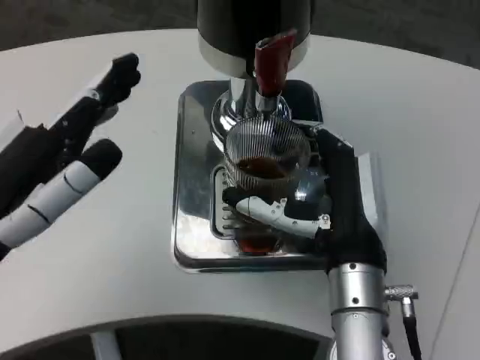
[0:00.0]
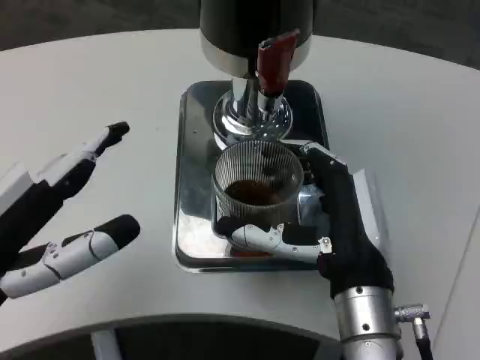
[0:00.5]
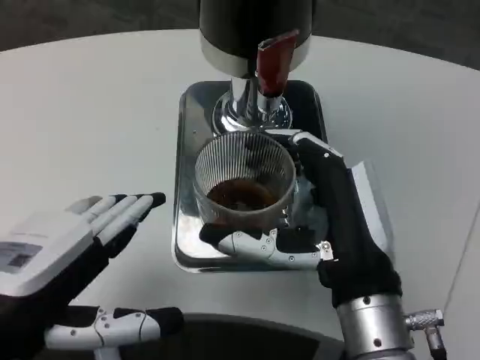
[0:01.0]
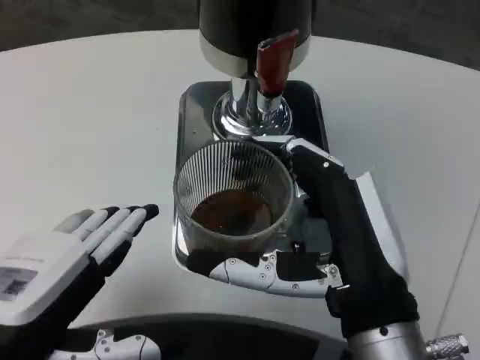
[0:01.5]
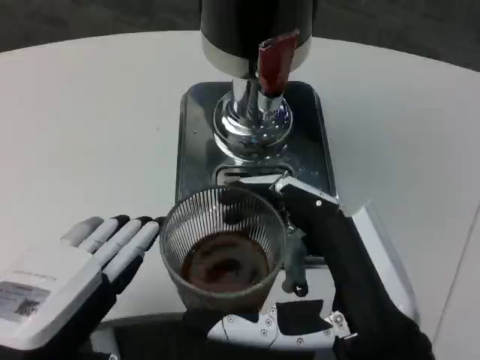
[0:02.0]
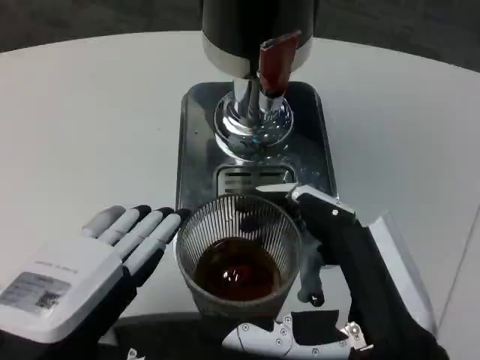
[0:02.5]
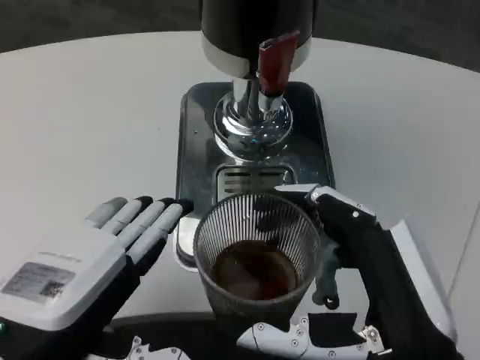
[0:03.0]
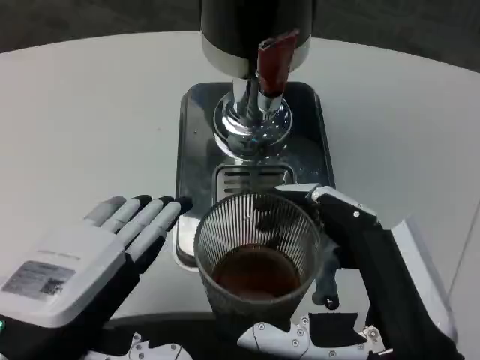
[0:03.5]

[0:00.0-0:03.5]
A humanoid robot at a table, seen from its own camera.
Task of the whole recording: Grasp the cup under the faucet to collect the drink, then remove the cup.
0.0 to 2.0 s: The right hand goes about 10 cm backward. Meanwhile the left hand goes about 5 cm backward.

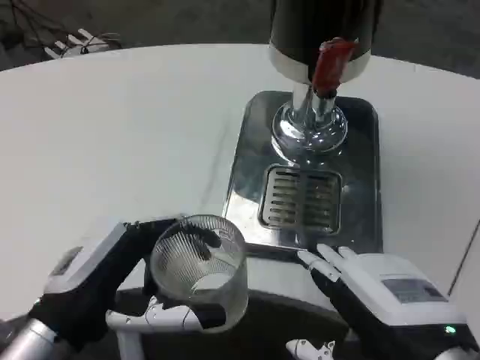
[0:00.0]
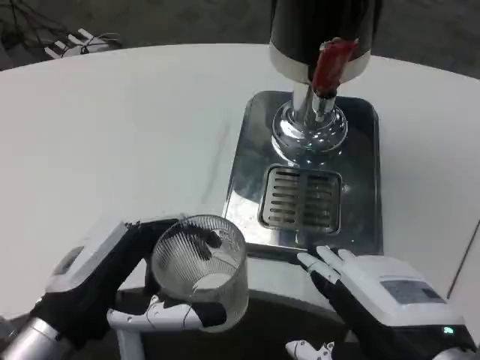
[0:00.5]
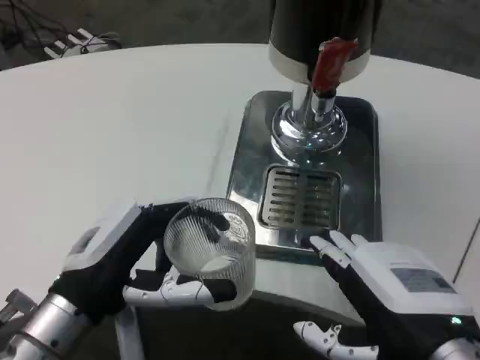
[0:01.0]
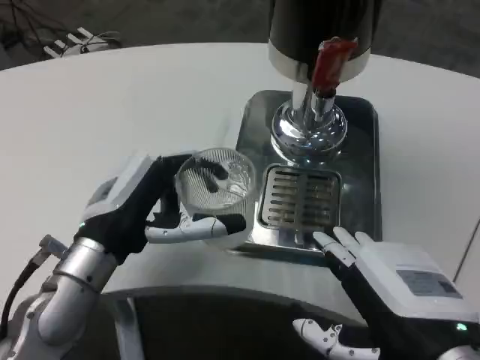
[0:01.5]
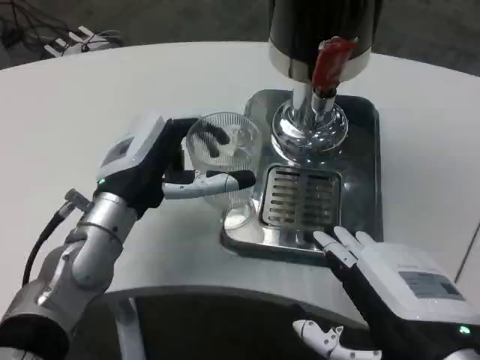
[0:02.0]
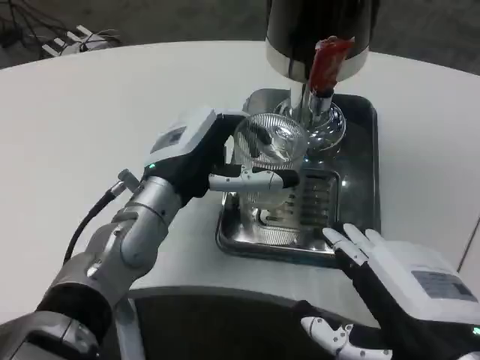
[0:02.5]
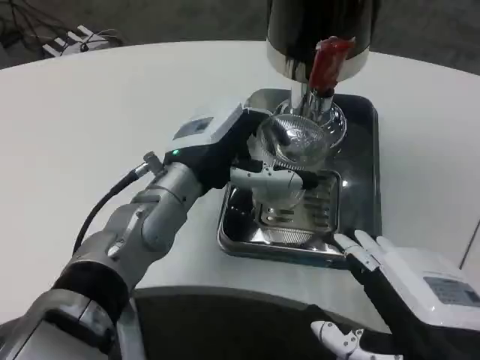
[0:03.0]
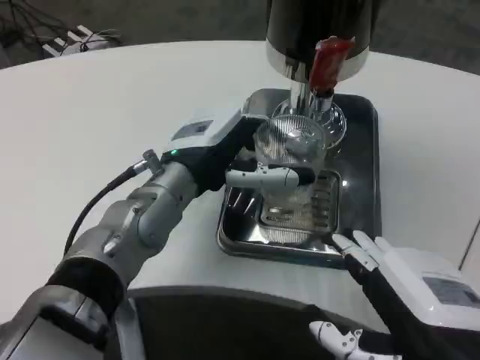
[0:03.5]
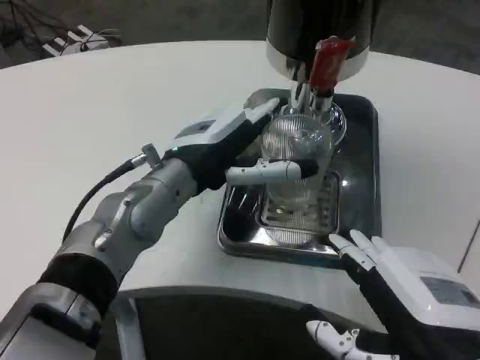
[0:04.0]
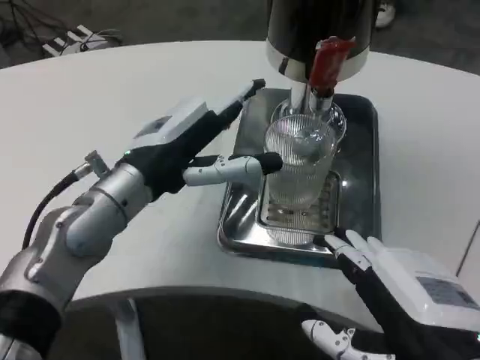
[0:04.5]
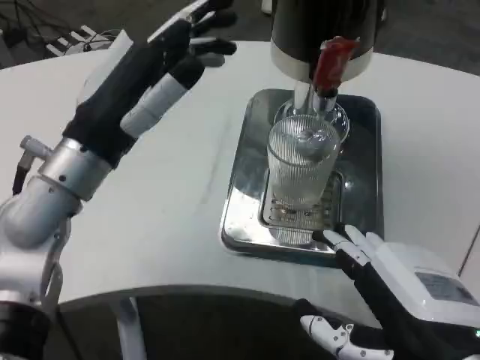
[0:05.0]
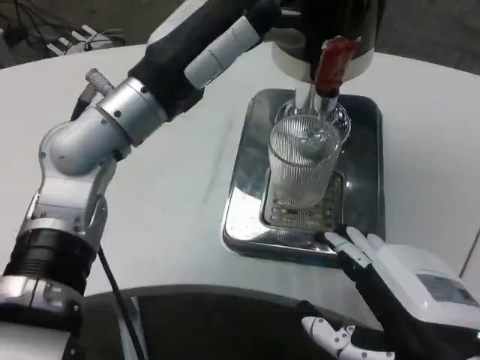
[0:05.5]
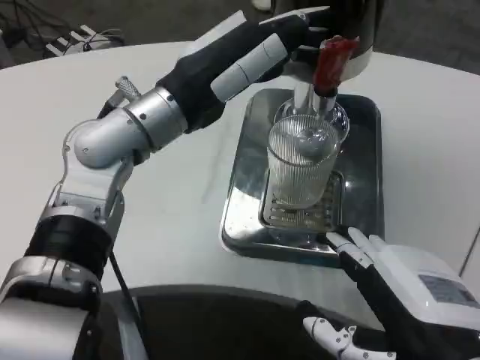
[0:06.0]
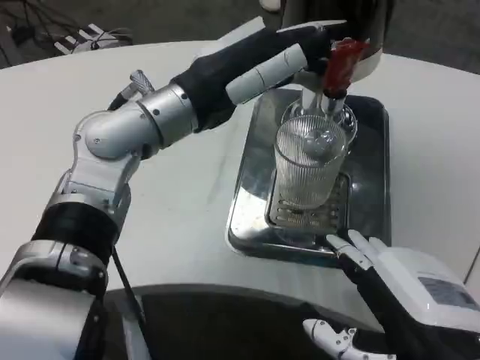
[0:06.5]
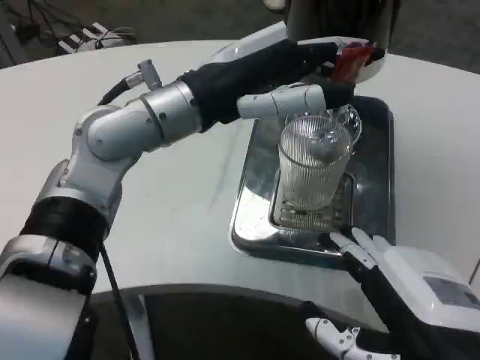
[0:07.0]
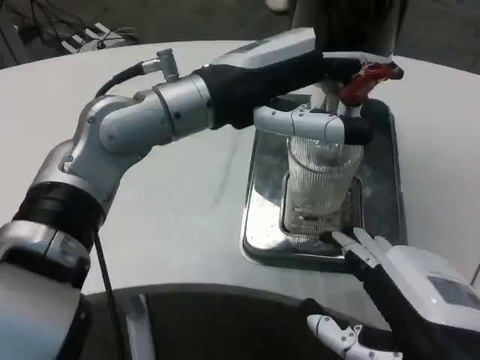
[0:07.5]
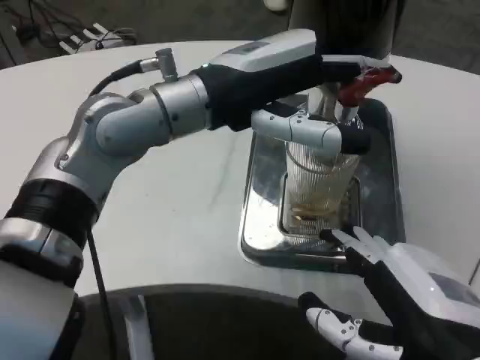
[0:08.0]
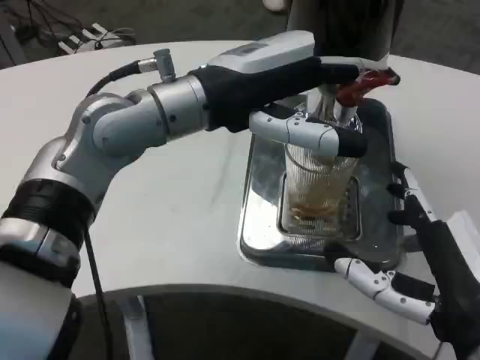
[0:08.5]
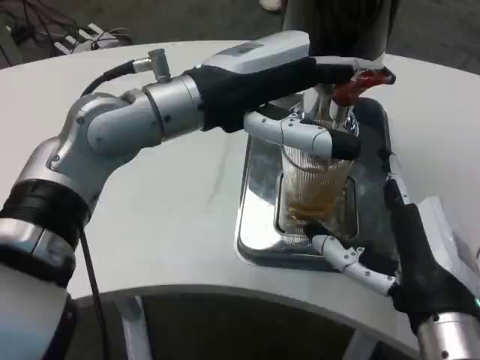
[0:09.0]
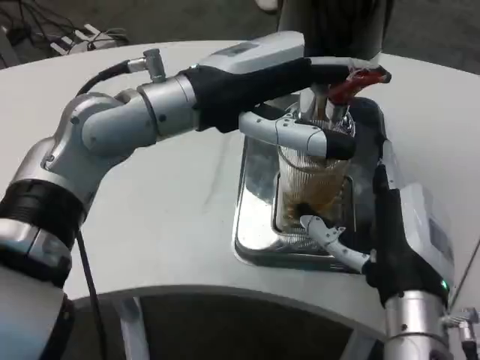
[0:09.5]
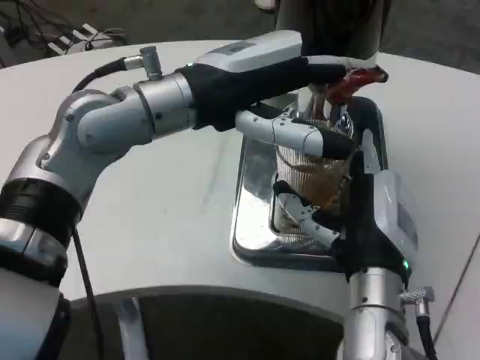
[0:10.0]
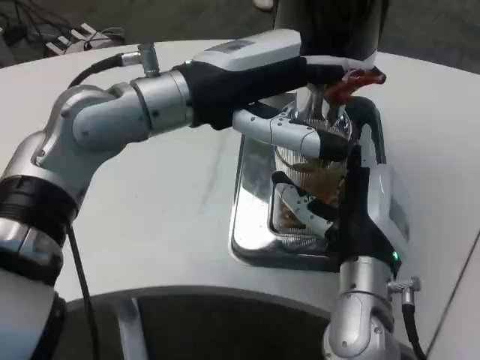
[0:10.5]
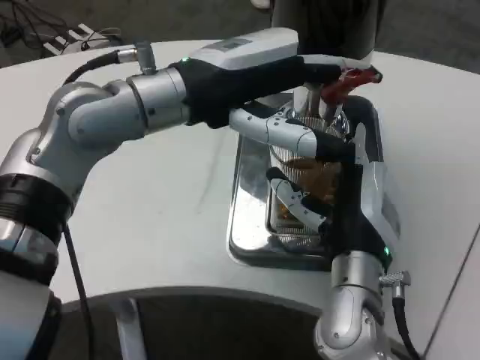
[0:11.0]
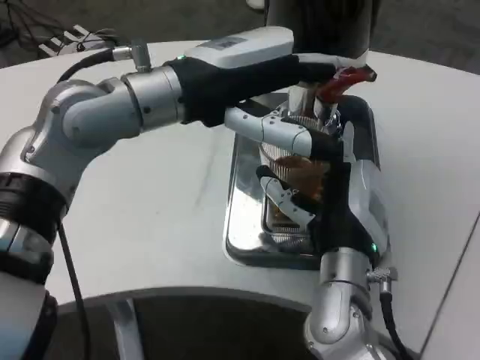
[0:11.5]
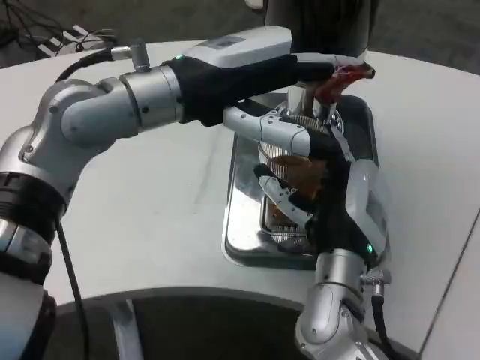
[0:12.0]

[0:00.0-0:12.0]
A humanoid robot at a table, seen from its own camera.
Task of the whole recording: Grasp the cup under the faucet to collect the drink, then remove the cup.
0.0 to 2.0 s: The left hand travels forward by roughly 10 cm.
2.0 to 4.0 s: The left hand changes place by about 5 cm.
4.0 to 6.0 s: The left hand shifts roughly 5 cm upward.
8.0 to 10.0 s: The right hand moves forward and to the left, approximately 15 cm.
10.0 to 12.0 s: The right hand shifts by roughly 5 cm.

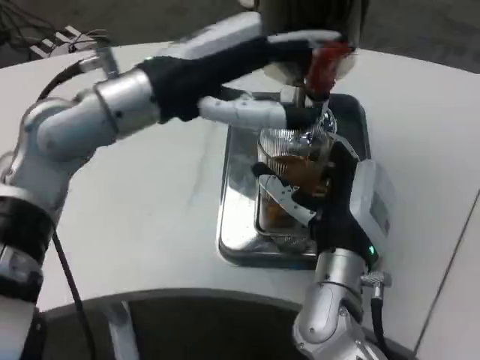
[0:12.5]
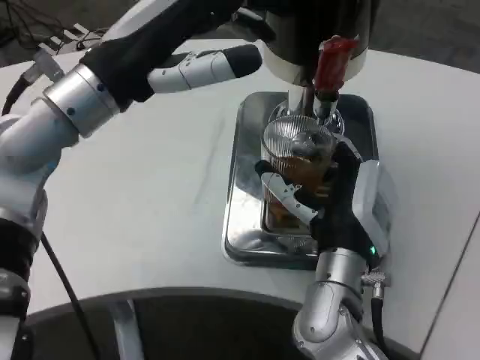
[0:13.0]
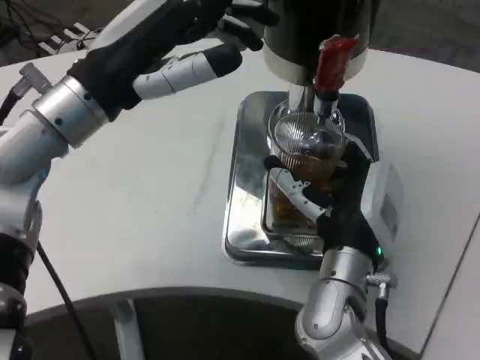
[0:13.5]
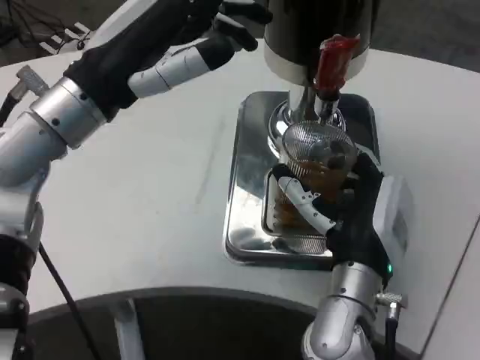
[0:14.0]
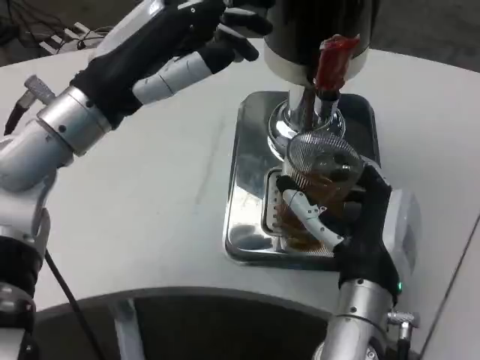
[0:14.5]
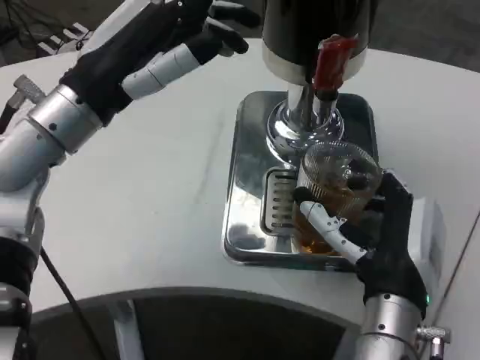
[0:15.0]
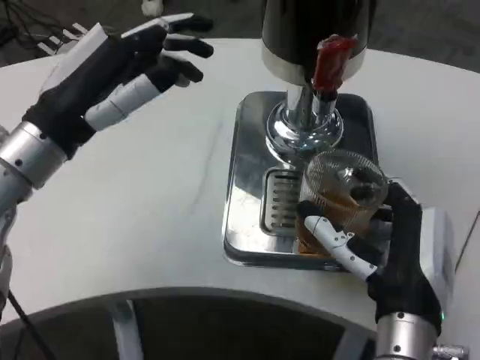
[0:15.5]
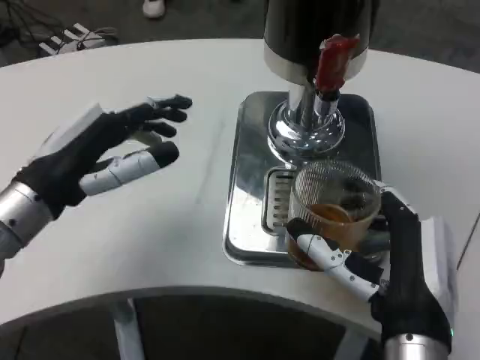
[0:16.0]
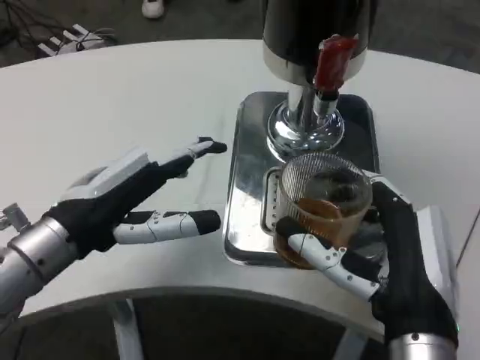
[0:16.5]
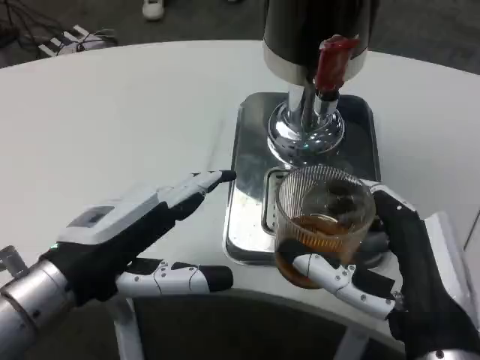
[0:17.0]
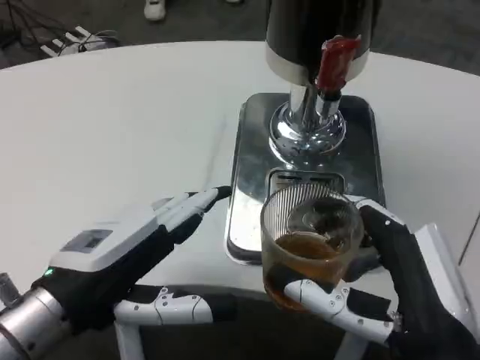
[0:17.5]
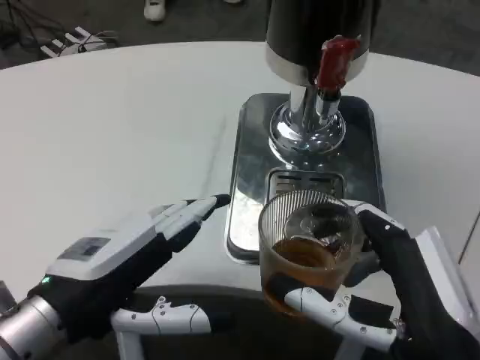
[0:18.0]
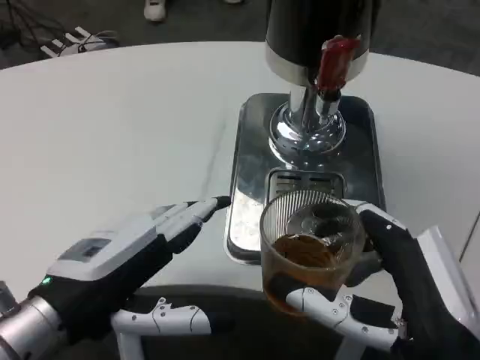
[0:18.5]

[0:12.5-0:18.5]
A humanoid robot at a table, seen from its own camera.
Task of the whole recording: Grasp the cup under the faucet to collect the drink, then remove the cup.
14.5 to 16.5 s: The left hand travels downward and backward by roughly 10 cm. Meanwhile the right hand travels backward by roughly 10 cm.
16.5 to 18.5 s: The right hand changes place by approximately 5 cm; the left hand travels backward by roughly 10 cm.

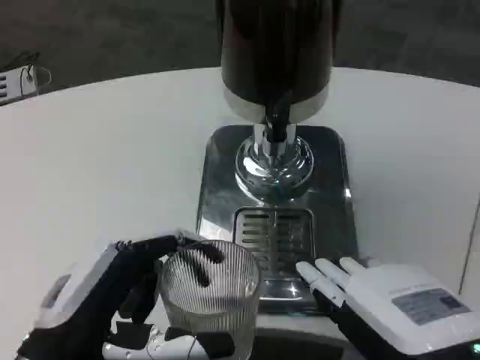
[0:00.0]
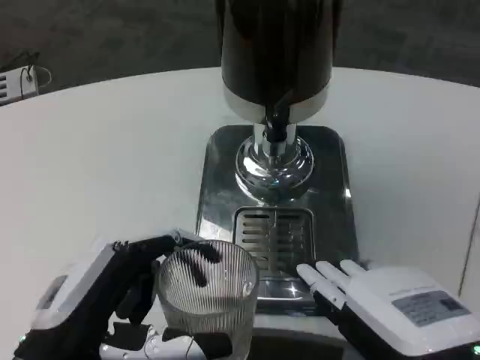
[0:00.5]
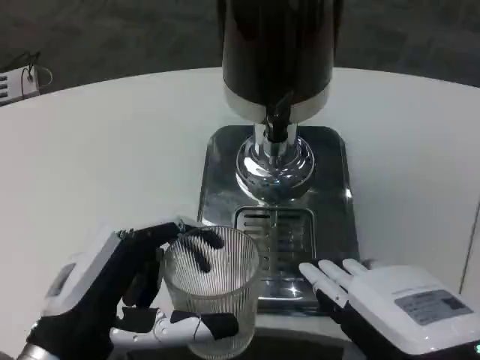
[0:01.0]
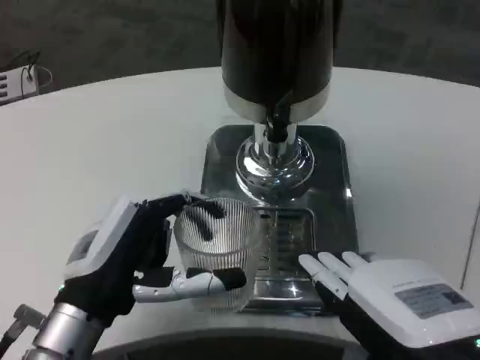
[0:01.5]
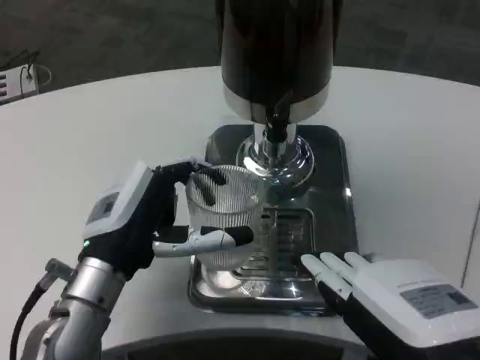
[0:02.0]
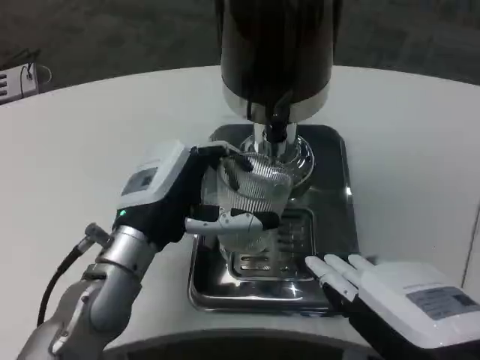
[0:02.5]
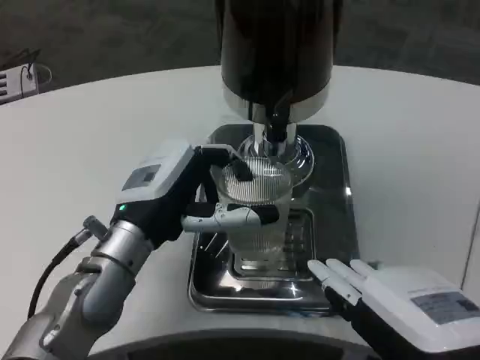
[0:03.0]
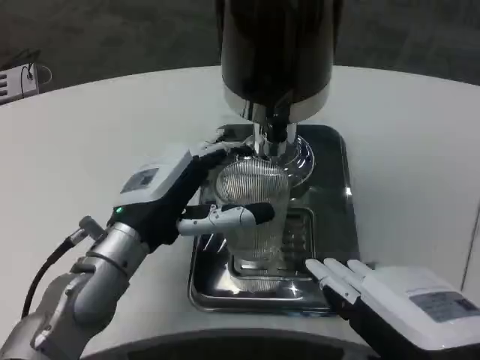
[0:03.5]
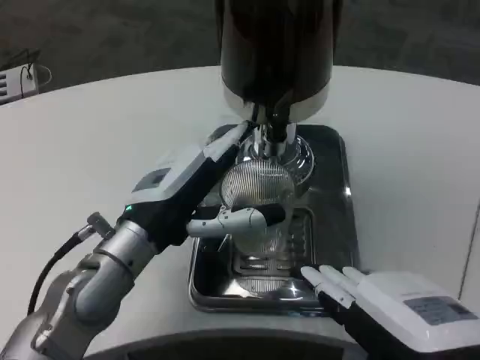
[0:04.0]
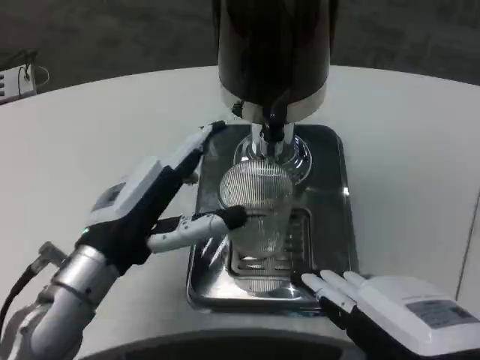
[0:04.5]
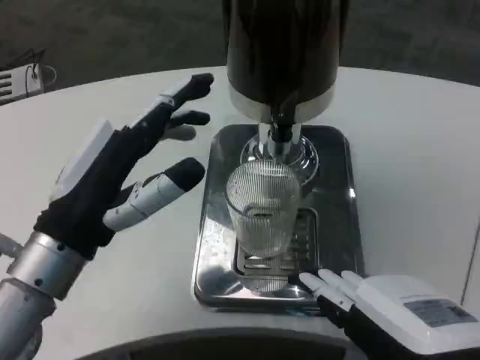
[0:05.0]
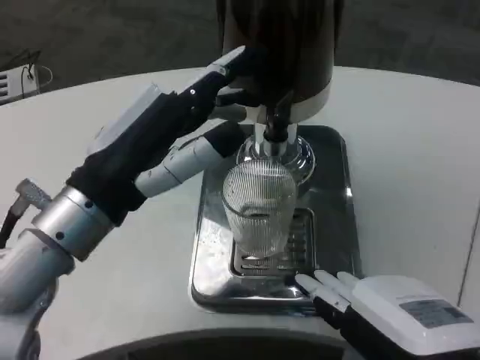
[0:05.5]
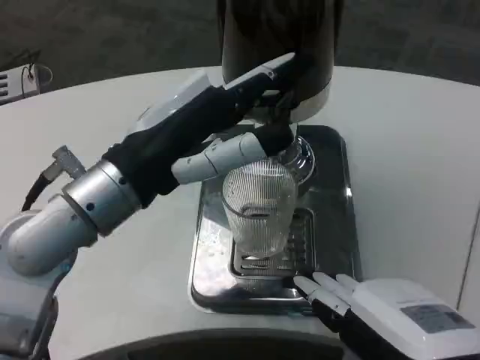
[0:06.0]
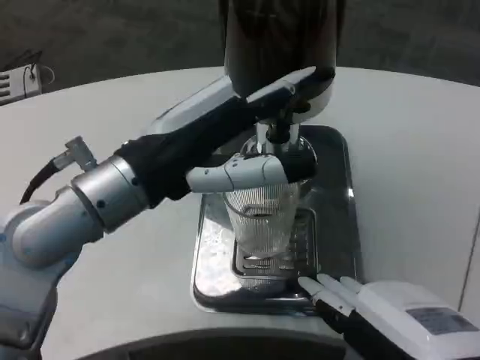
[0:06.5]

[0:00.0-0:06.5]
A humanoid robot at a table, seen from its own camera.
Task of the whole recording: Grasp the cup under the faucet to collect the drink, then remove the cup.
0.0 to 2.0 s: The left hand travels forward by approximately 10 cm.
4.5 to 6.5 s: The left hand goes approximately 10 cm upward.
